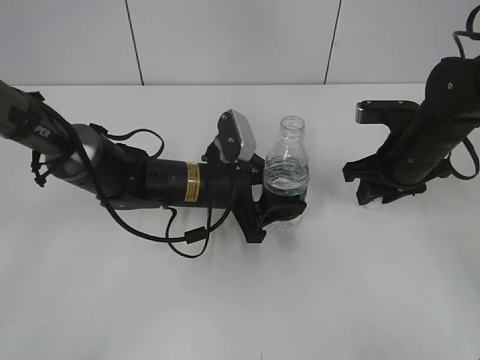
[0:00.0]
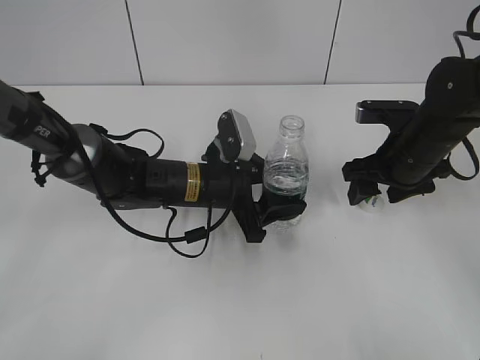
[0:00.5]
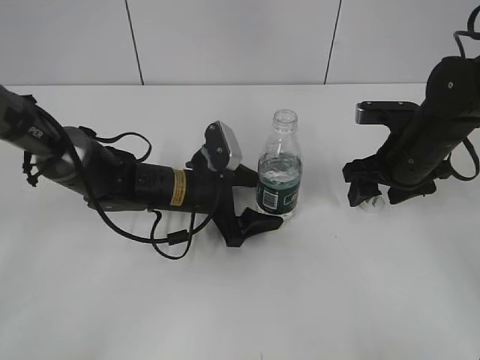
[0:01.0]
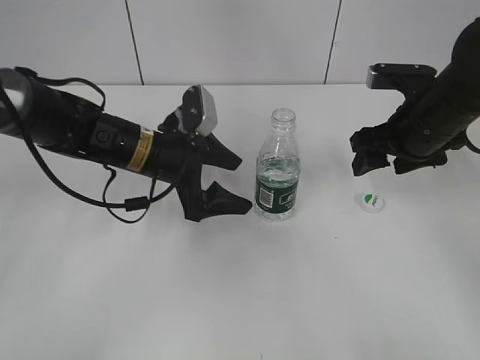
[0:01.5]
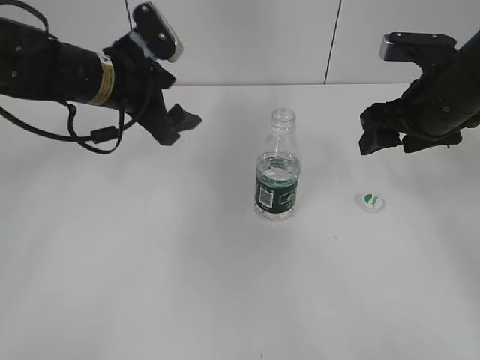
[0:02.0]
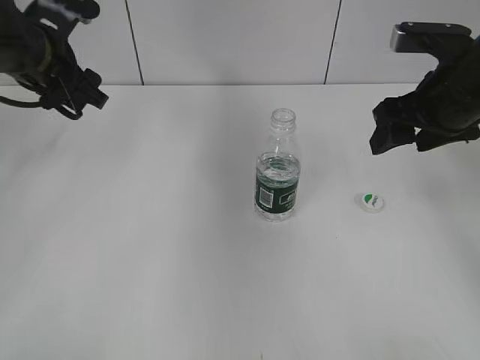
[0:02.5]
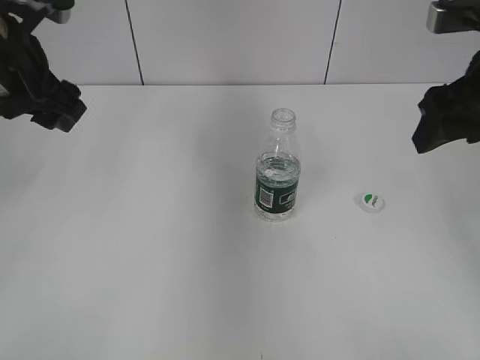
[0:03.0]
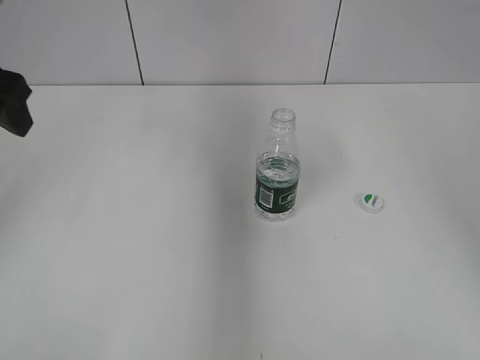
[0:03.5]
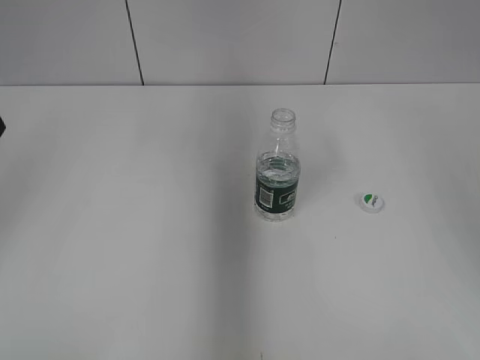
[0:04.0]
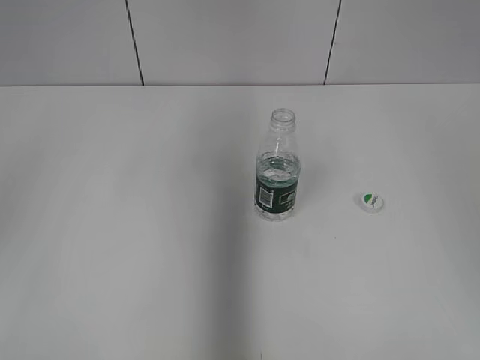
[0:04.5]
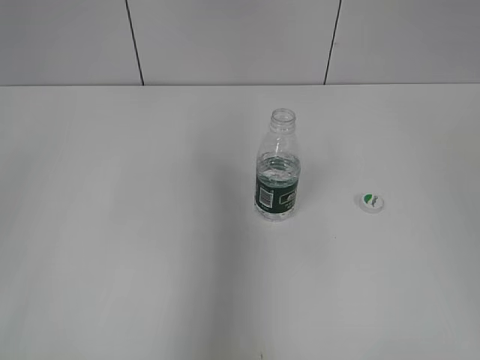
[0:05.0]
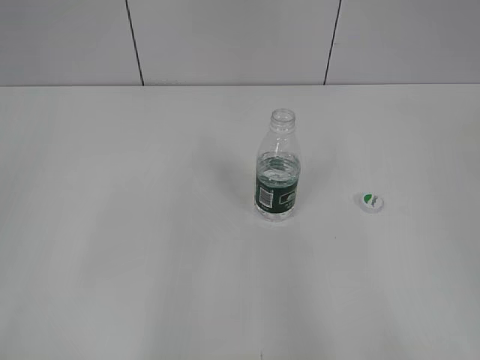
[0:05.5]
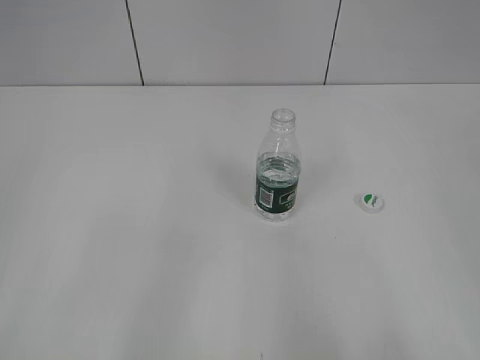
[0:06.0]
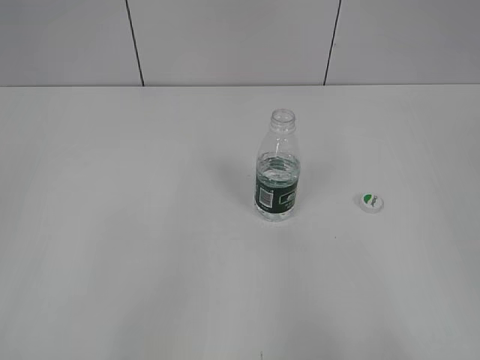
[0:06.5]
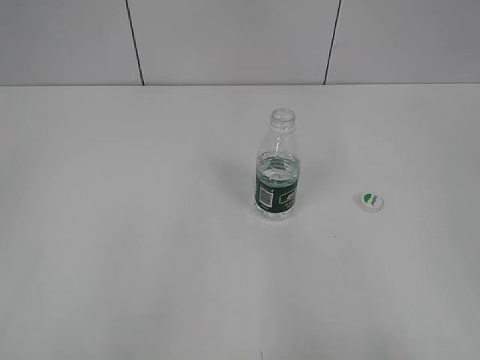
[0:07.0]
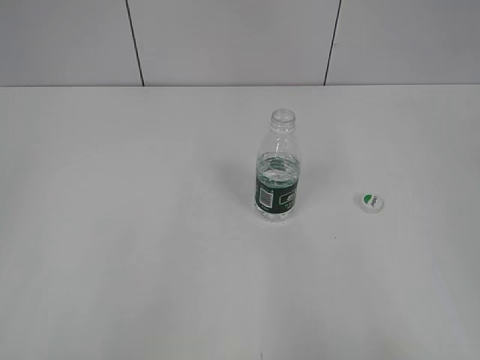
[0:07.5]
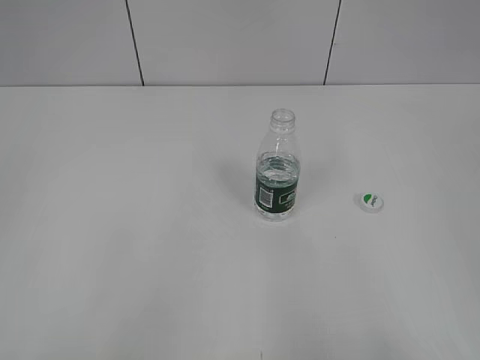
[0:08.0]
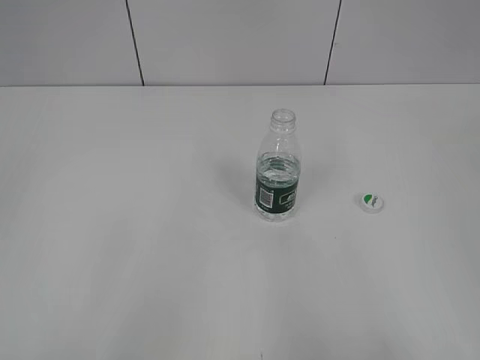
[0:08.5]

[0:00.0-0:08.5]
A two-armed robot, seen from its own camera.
0:00.0 to 0:02.0: The left gripper is displaced upward and to the left by some 15 cm, and opens up. The right gripper is displaced upward by some 10 cm, and opens.
0:02.0 to 0:04.0: The right gripper heads upward, backward and to the right, covering roughly 20 cm; the left gripper moves to the left, upward and backward, roughly 20 cm.
0:04.0 to 0:06.5: The two grippers go approximately 25 cm backward.

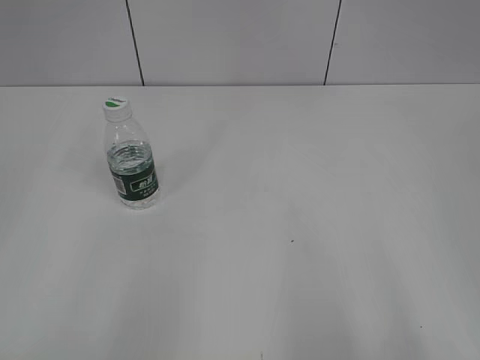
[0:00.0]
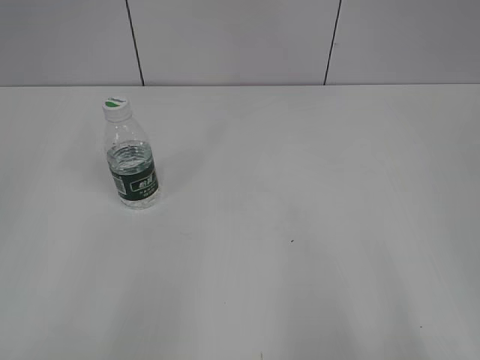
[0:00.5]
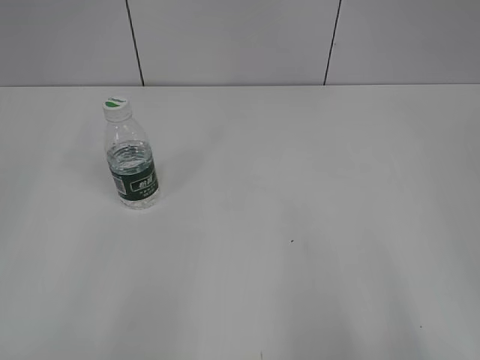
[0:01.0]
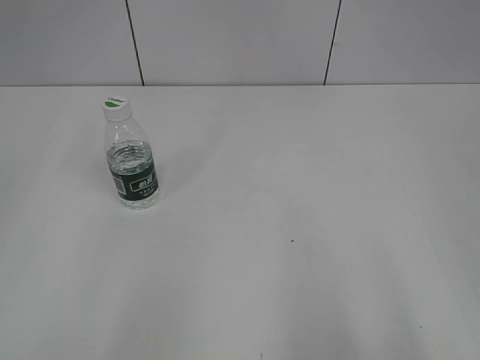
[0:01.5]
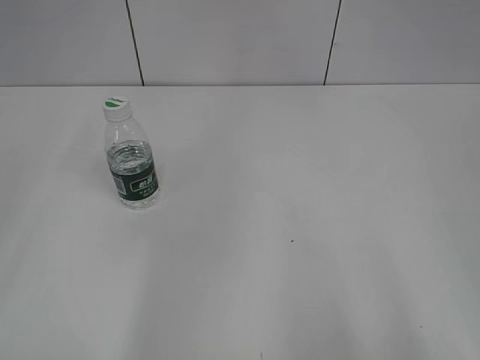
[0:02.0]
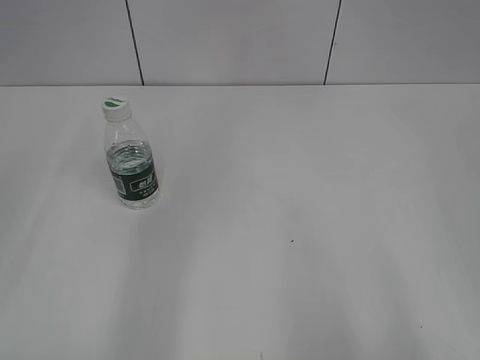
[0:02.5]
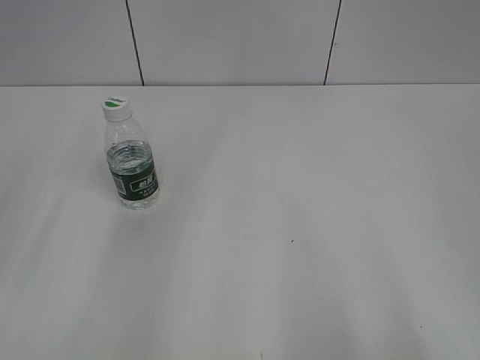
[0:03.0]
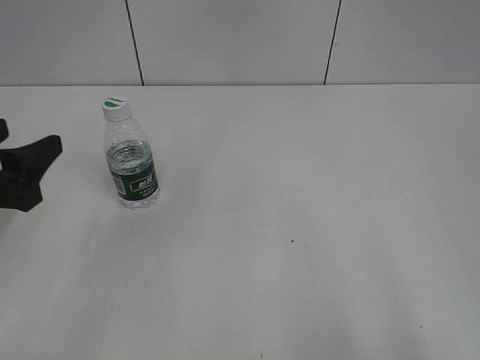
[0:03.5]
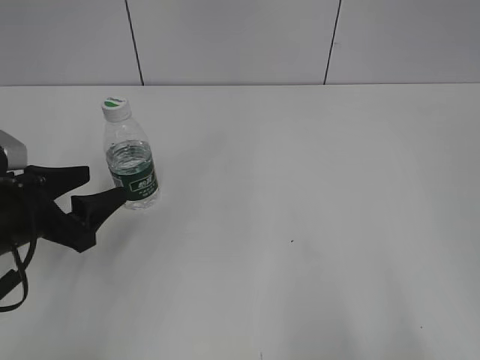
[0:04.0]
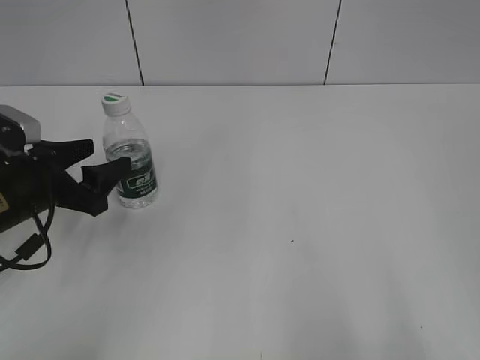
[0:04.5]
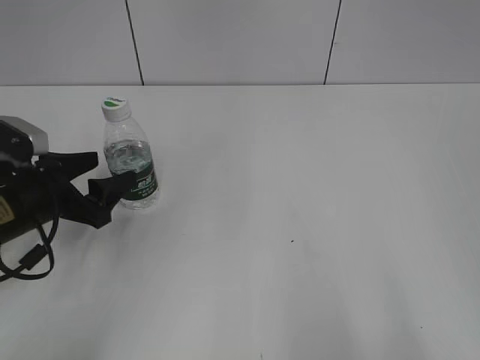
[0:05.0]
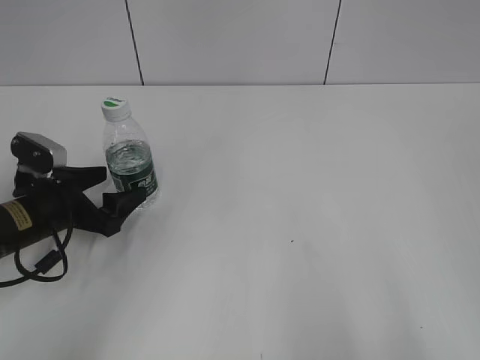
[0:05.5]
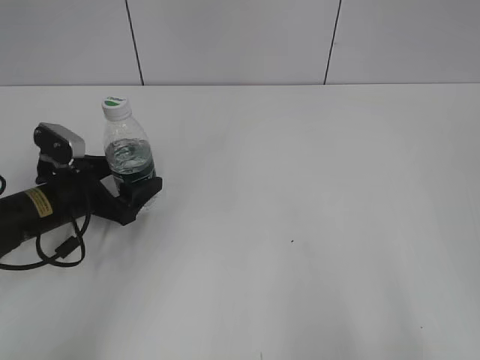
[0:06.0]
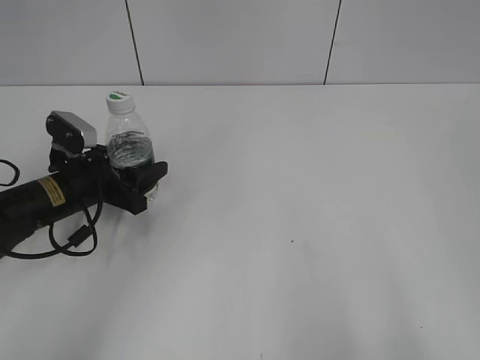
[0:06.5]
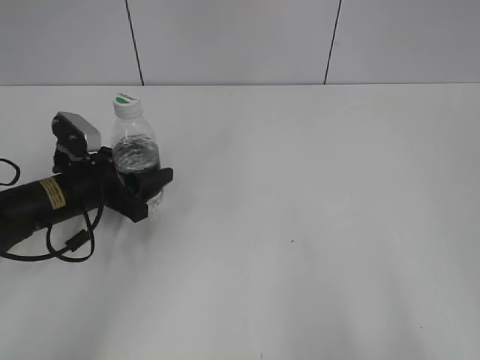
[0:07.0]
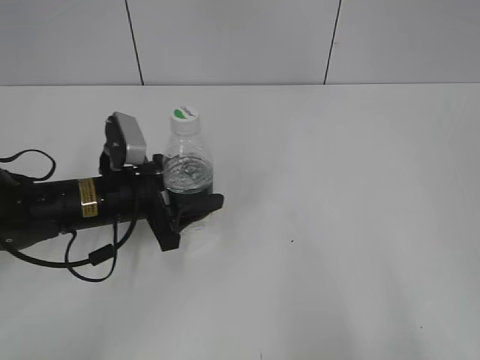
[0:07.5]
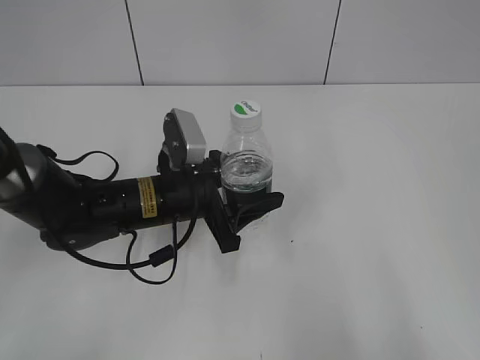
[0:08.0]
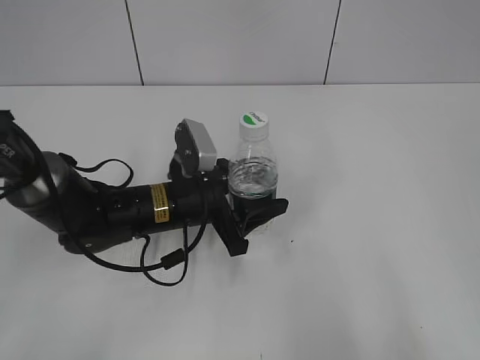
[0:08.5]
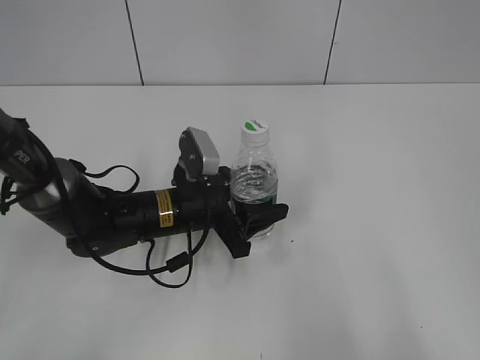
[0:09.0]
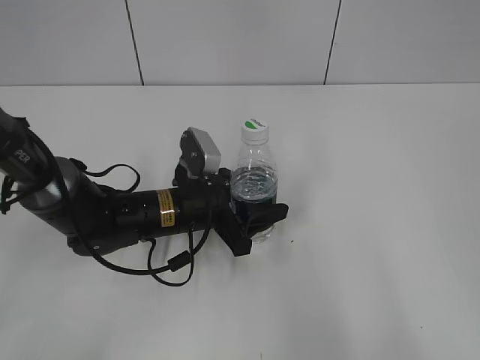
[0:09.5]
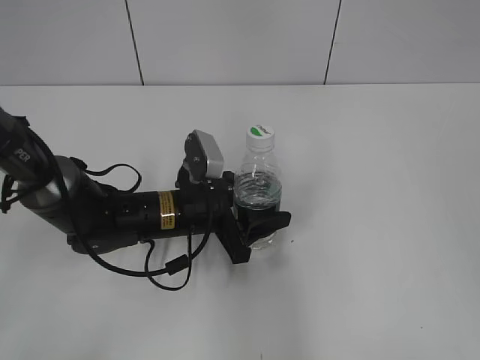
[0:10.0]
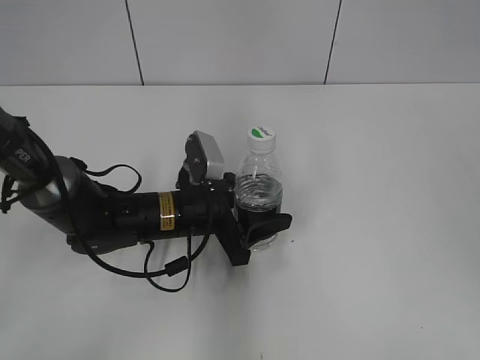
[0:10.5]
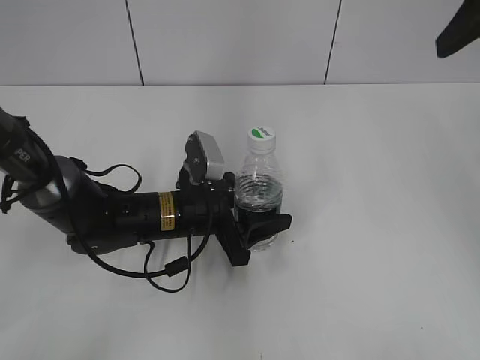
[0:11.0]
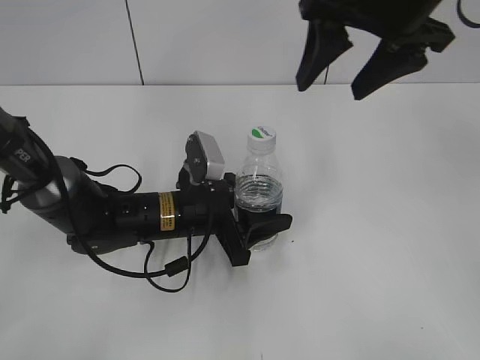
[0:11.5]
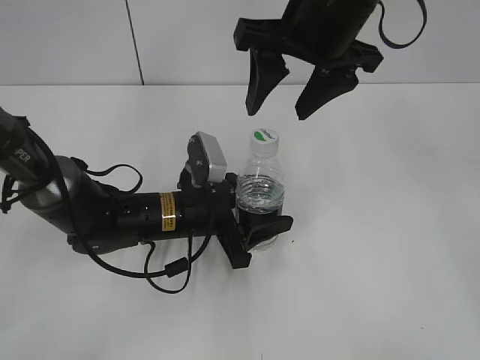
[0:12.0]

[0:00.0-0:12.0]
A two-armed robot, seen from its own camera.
Step, 0:00.0 to 0:06.0: Grasp the bottle and move it to the center of the table with the left gripper.
Step, 0:07.0 to 0:10.0: Lift the bottle and move it to the center of the table with the left gripper.
0:02.0 to 0:04.0: The left gripper shifts some 30 cm downward and forward.
0:04.0 to 0:06.0: The left gripper travels forward and downward by some 10 cm, and opens its fingers.
0:06.0 to 0:08.0: The left gripper goes about 15 cm to the right, and closes.
0:08.0 to 0:10.0: The right gripper travels forward and upward by some 10 cm.
0:10.0 to 0:12.0: The right gripper shifts some 35 cm forward and to the left.

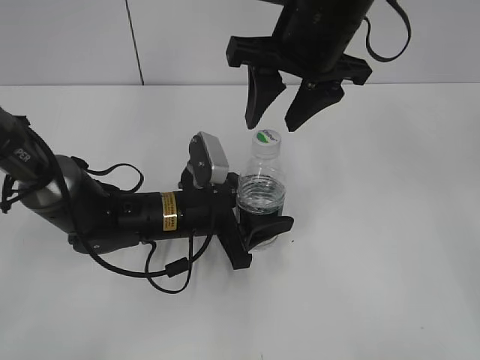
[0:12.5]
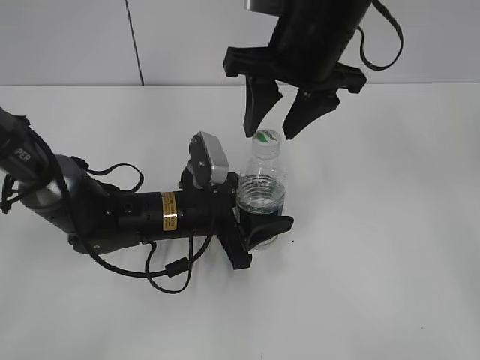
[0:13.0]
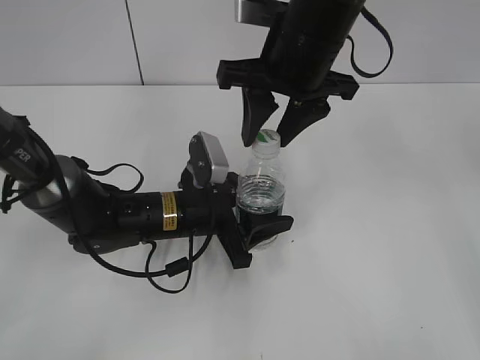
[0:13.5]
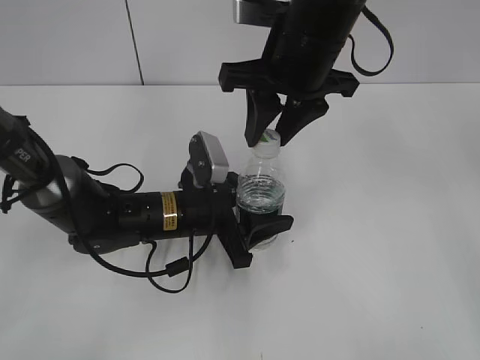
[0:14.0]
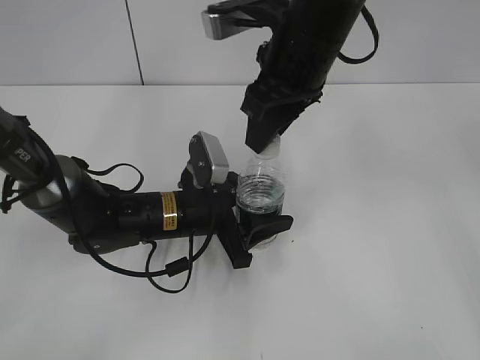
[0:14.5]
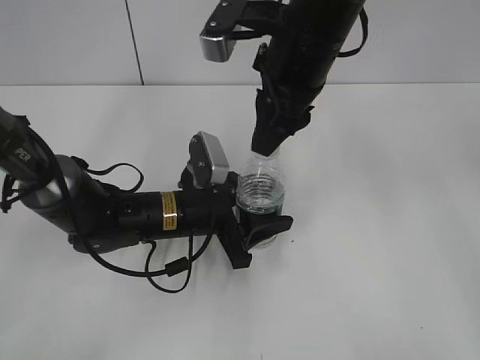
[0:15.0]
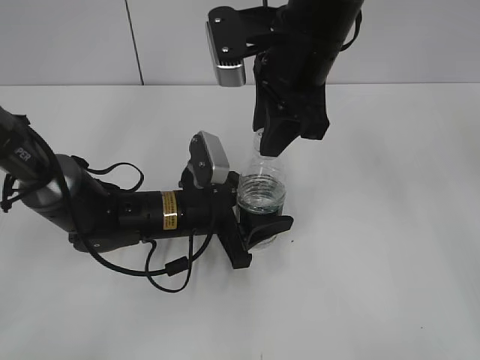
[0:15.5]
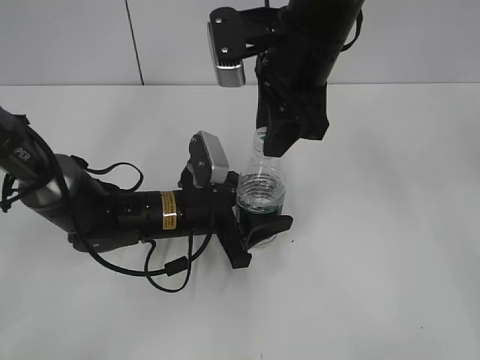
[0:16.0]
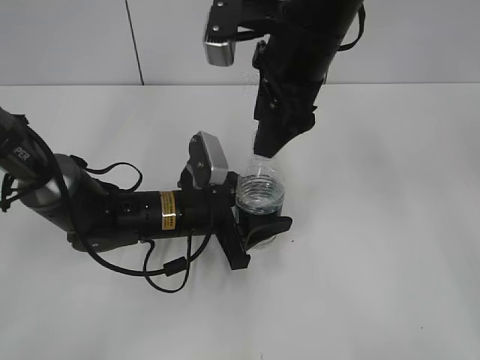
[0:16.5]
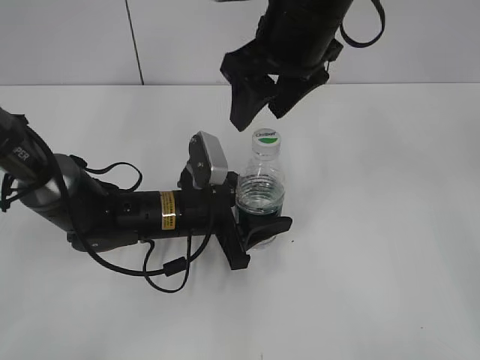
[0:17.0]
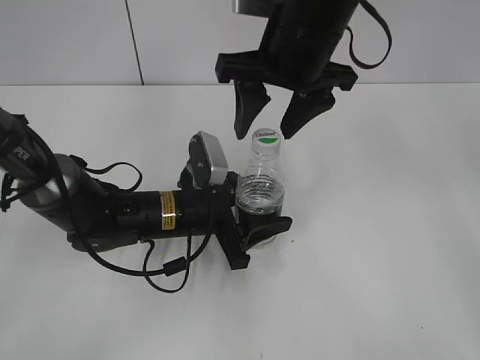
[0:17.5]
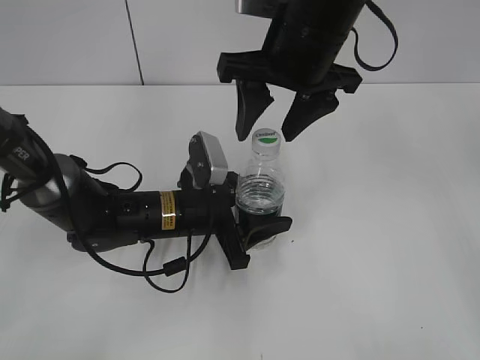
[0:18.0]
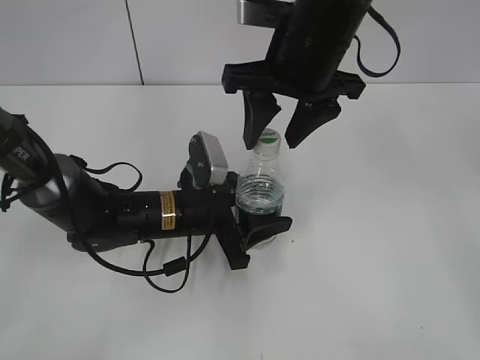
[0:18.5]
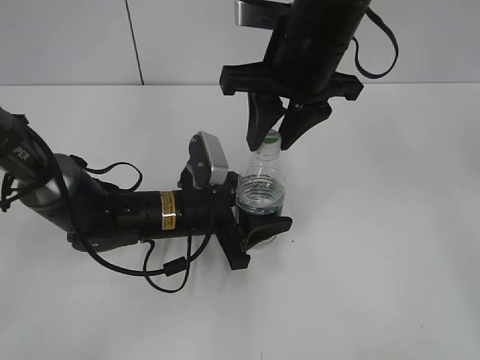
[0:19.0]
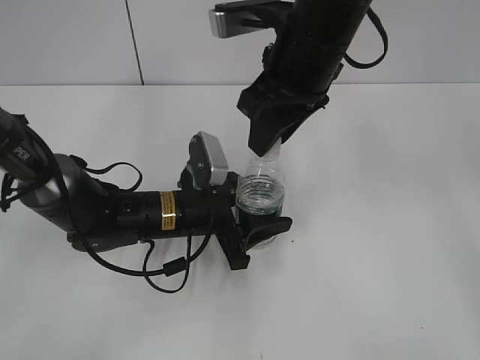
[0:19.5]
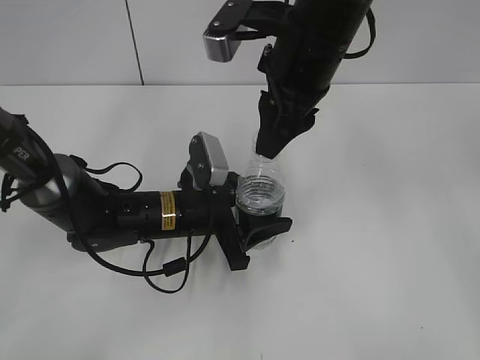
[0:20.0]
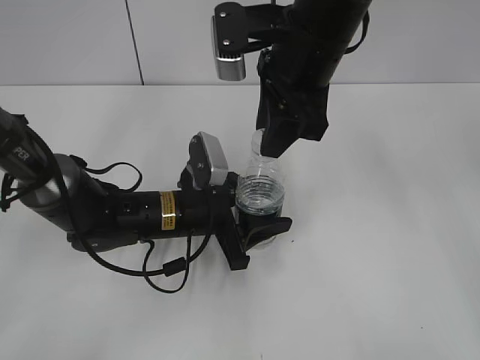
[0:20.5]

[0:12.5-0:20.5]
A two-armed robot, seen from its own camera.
0:12.5 to 0:14.5: The right gripper closes up.
0:14.5 to 0:16.5: The right gripper opens its fingers.
0:18.5 to 0:20.5: The right gripper closes up.
